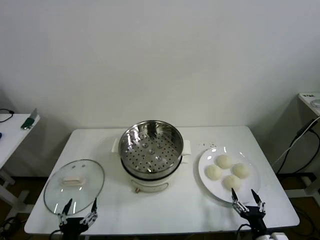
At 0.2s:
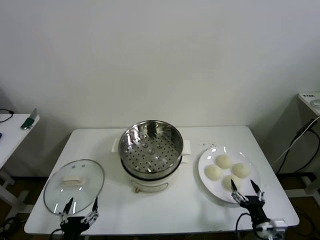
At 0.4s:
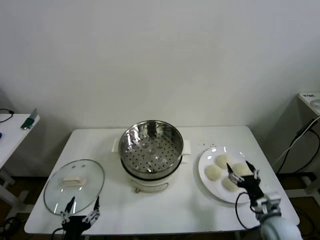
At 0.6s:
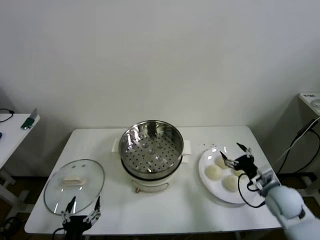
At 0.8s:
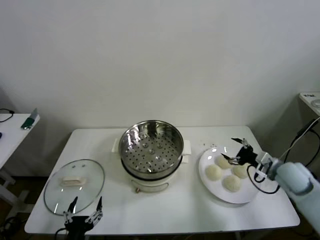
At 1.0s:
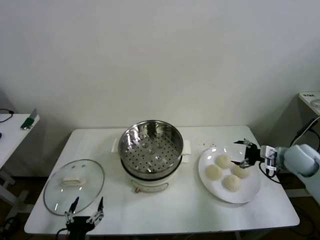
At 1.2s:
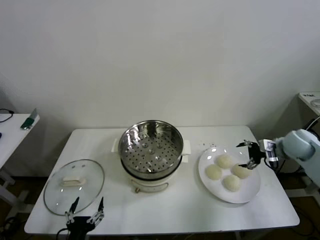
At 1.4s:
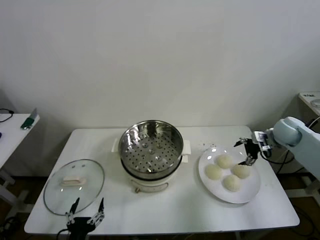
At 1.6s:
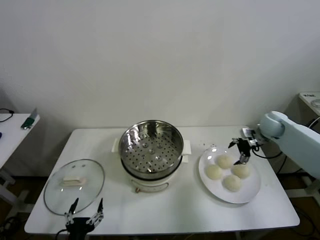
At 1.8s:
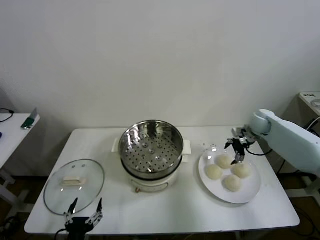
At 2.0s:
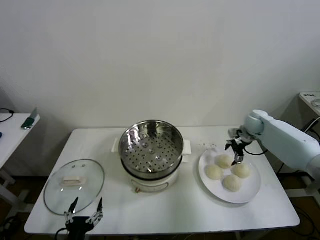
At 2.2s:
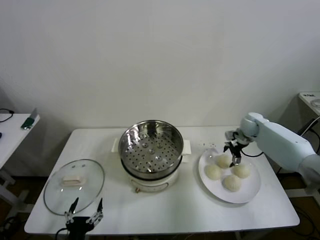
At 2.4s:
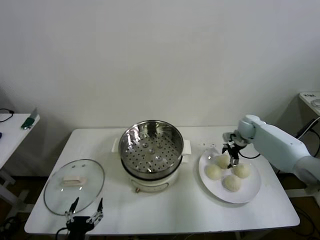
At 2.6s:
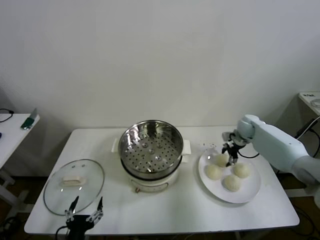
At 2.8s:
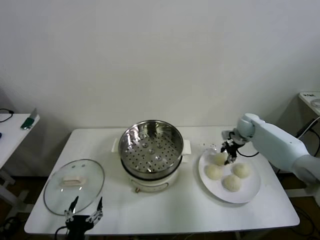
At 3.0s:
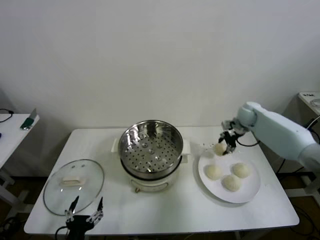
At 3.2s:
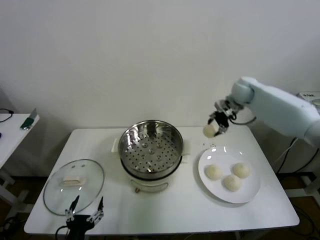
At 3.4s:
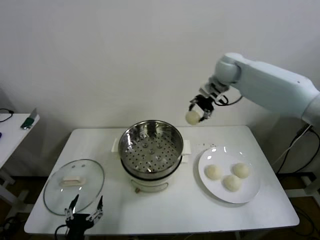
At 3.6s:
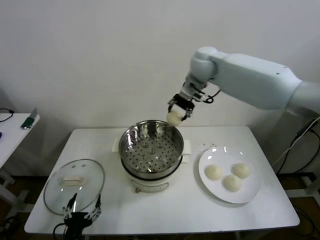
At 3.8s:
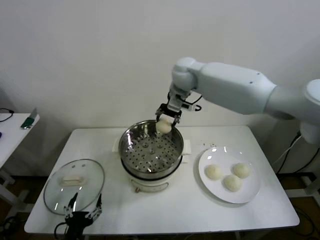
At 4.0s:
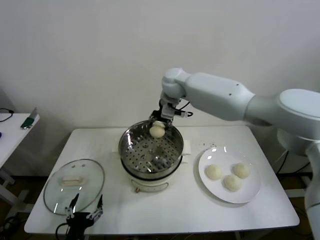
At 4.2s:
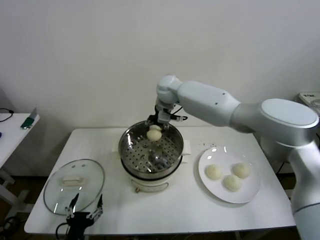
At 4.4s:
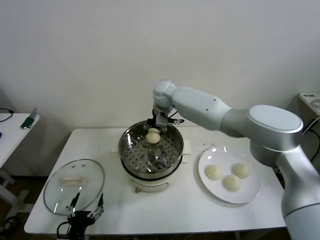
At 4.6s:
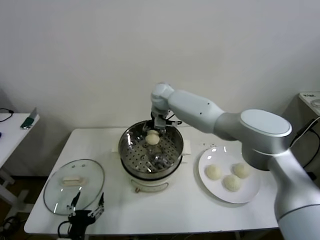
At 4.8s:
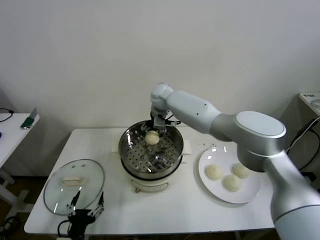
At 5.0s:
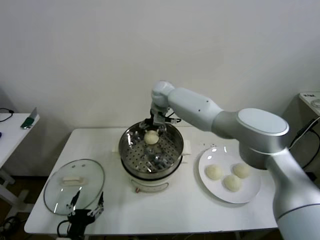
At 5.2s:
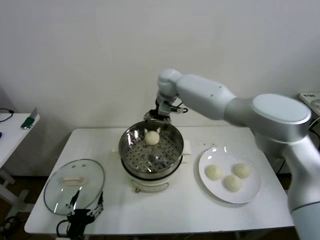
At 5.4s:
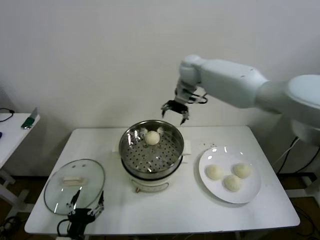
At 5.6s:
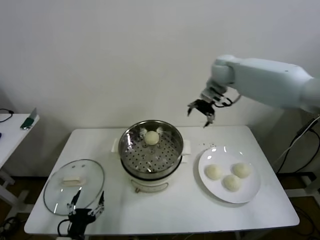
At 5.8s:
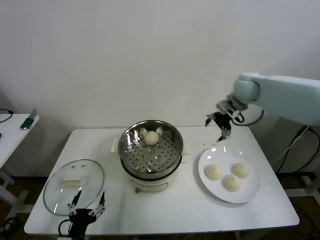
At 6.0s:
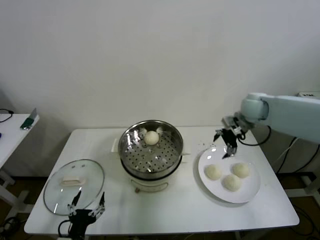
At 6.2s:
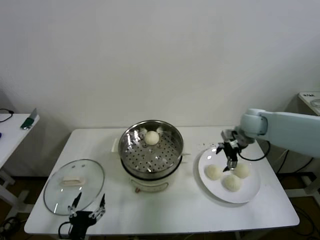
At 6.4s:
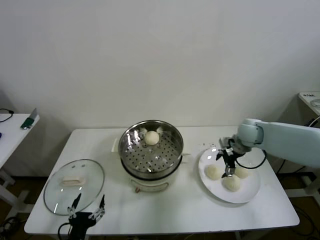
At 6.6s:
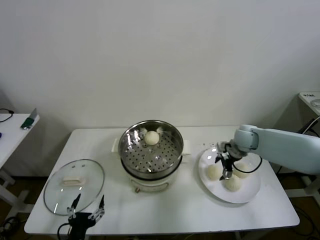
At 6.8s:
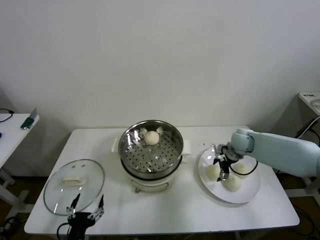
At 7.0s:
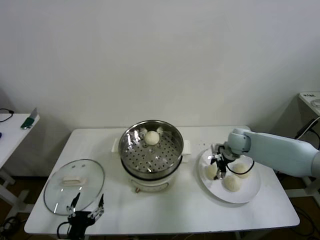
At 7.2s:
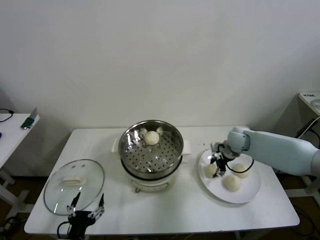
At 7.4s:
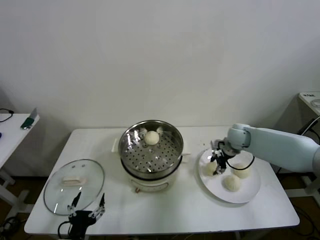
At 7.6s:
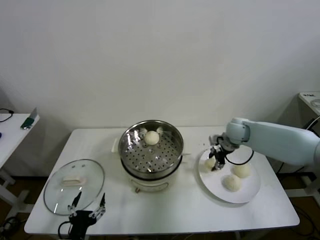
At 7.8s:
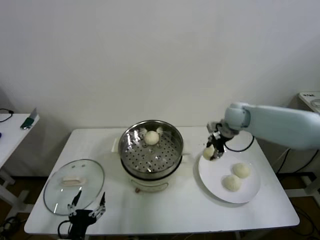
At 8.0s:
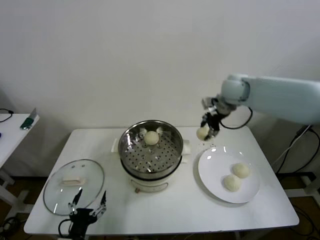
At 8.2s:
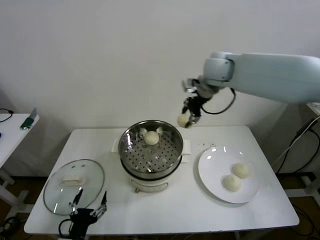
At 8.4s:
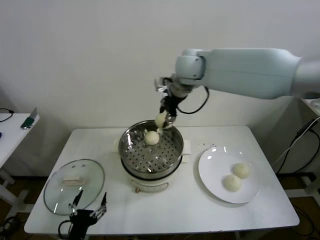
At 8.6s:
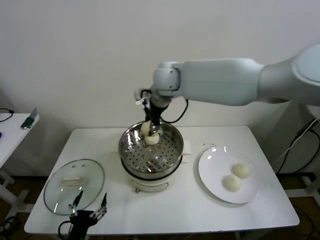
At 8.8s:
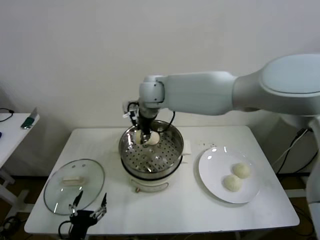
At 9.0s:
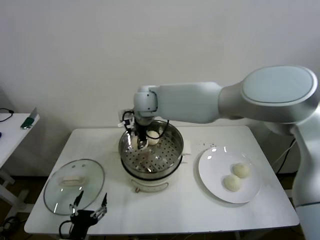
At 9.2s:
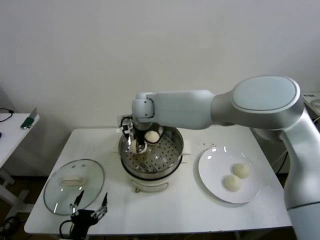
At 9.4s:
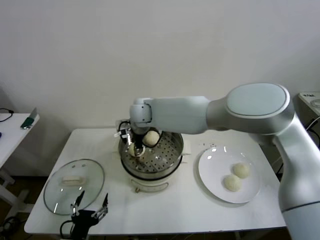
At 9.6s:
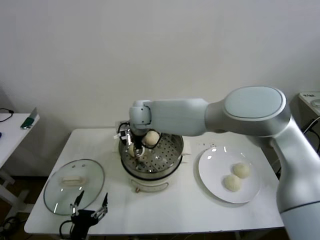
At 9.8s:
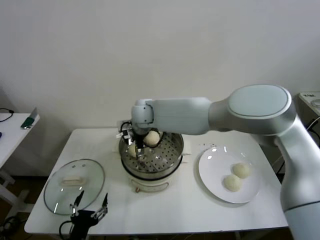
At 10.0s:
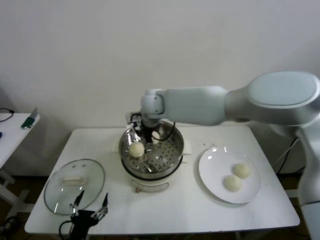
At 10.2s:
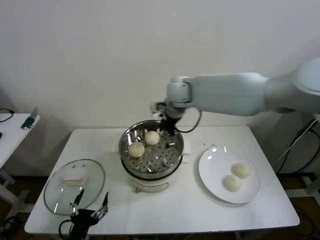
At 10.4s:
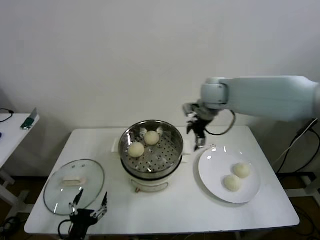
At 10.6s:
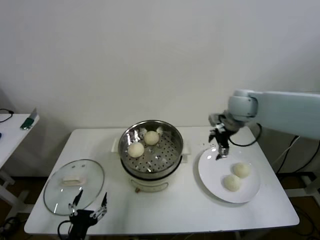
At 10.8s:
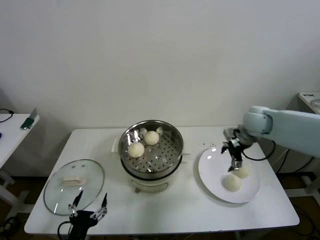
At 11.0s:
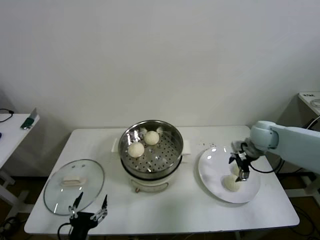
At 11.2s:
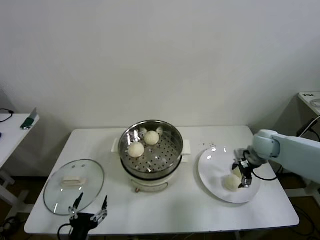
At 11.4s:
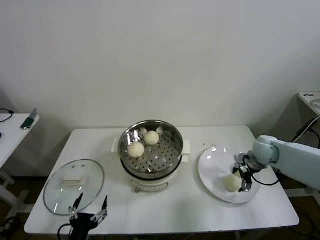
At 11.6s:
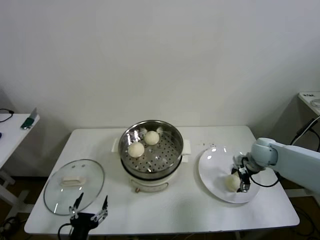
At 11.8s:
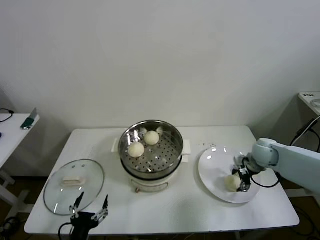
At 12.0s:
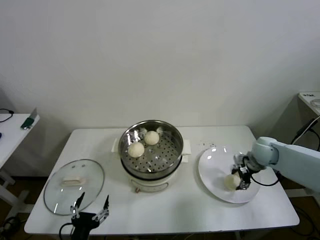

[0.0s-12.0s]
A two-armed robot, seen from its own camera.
Step, 0.0s to 2.6s: Grasp the baozi in the plate with right gripper.
Step, 2.8s to 4.8s: Place the baozi on the steamer with right gripper.
Step, 5.0s to 7.0s: Grasp the baozi in the plate with right gripper.
Step, 7.4s to 9.8s: Place the baozi on the steamer with right gripper.
Step, 10.0s to 11.8s: Grasp the baozi in the plate with right gripper.
1.6s to 3.0s: The right gripper shifts some 10 cm to the left, upward and forward, and closes its fingers.
3.0s to 4.4s: The right gripper moves to the left, some 30 cm.
4.4s to 6.0s: The right gripper travels to the right by some 30 cm, and opens its fingers.
6.0s to 7.6s: The right gripper moves downward, some 5 cm, and closes its fingers.
7.6s to 9.0s: The right gripper heads to the left, covering approximately 35 cm.
9.0s to 10.4s: The right gripper heads to the right, covering about 25 cm, and opens up.
10.4s to 12.0s: The right gripper travels downward and to the right by about 25 cm, and closes.

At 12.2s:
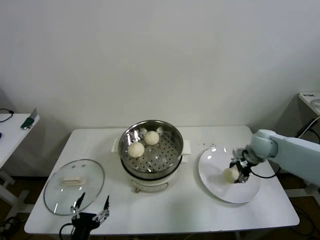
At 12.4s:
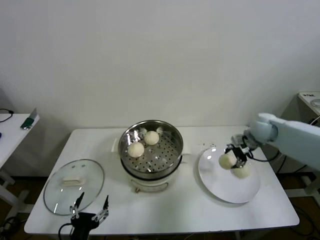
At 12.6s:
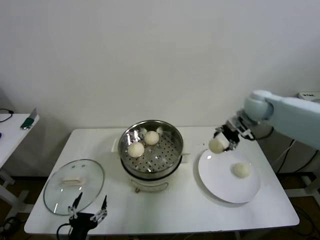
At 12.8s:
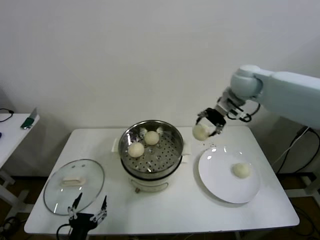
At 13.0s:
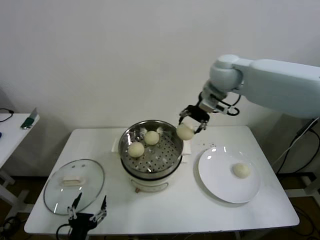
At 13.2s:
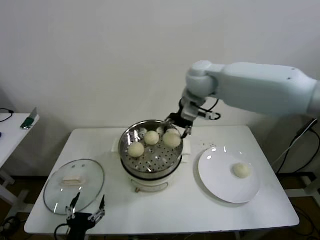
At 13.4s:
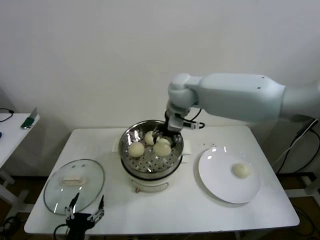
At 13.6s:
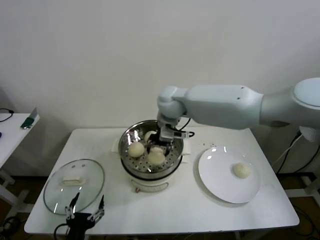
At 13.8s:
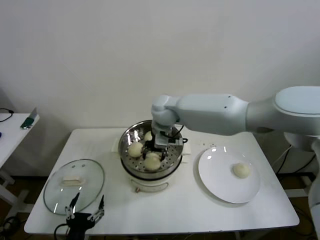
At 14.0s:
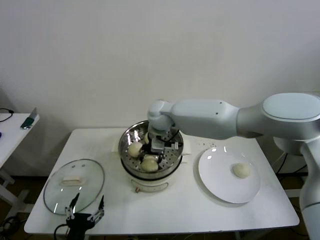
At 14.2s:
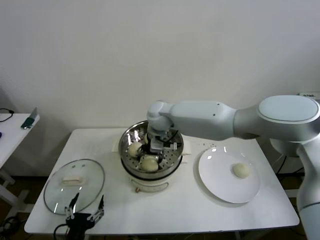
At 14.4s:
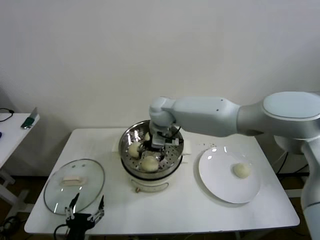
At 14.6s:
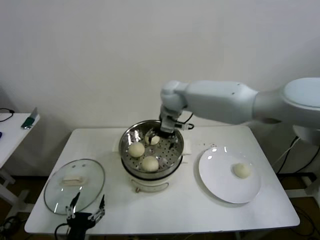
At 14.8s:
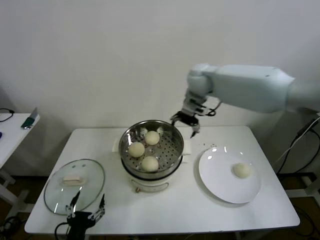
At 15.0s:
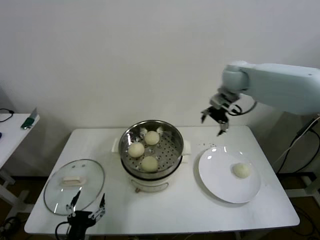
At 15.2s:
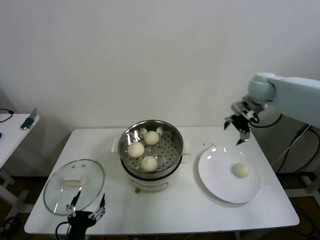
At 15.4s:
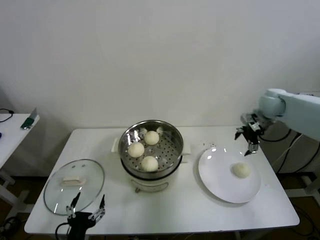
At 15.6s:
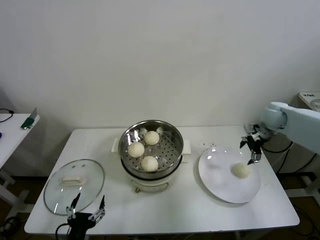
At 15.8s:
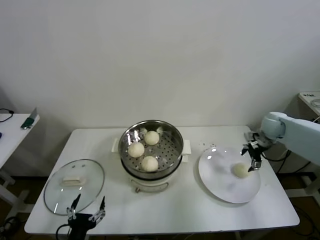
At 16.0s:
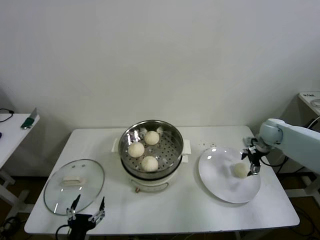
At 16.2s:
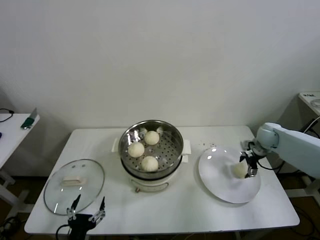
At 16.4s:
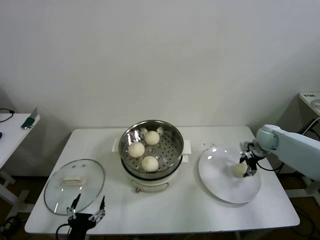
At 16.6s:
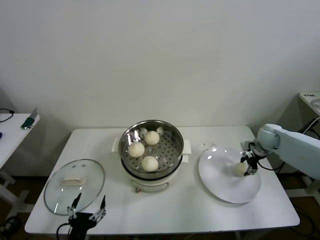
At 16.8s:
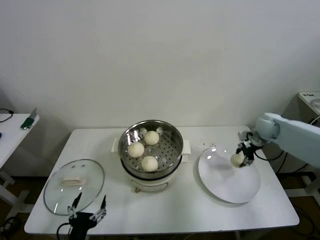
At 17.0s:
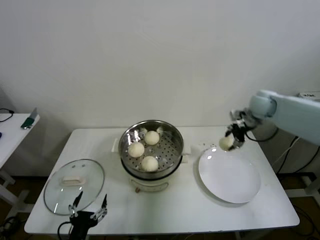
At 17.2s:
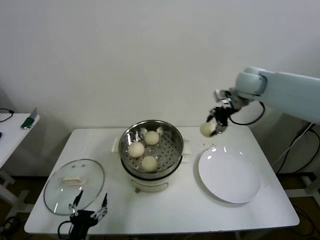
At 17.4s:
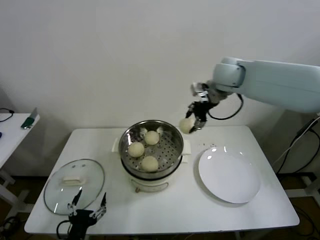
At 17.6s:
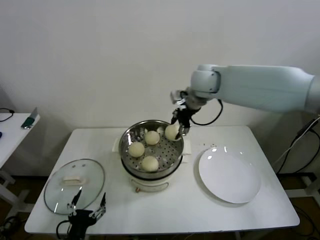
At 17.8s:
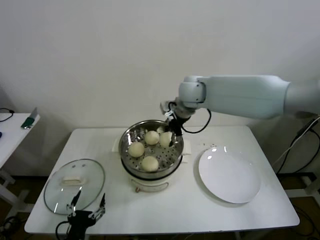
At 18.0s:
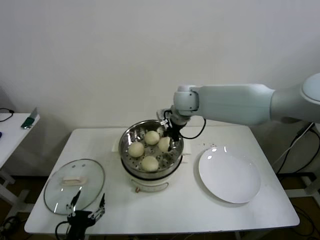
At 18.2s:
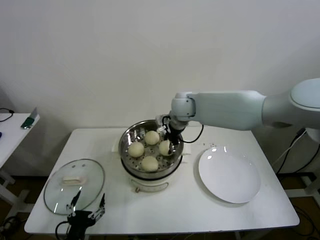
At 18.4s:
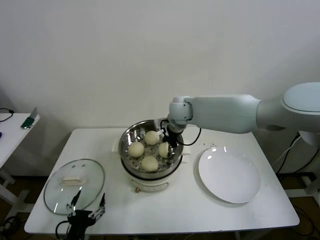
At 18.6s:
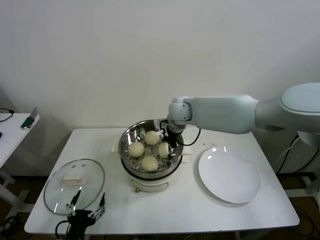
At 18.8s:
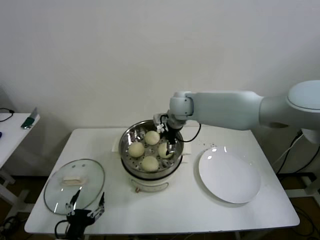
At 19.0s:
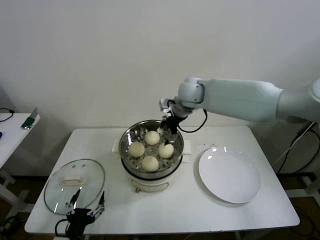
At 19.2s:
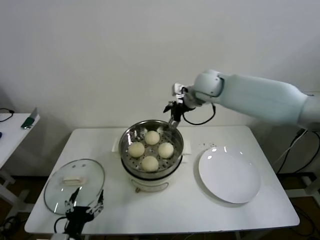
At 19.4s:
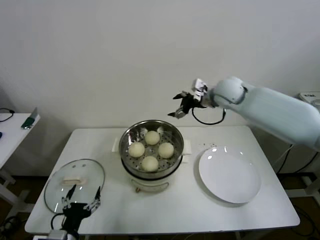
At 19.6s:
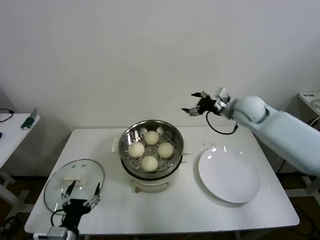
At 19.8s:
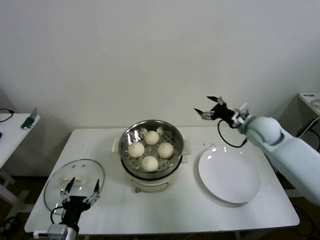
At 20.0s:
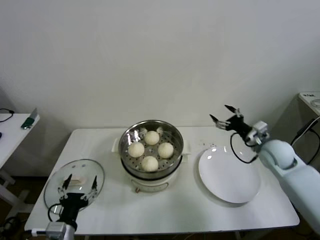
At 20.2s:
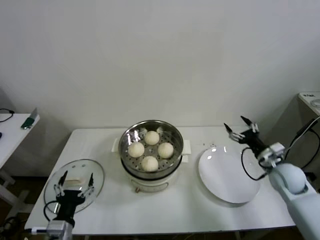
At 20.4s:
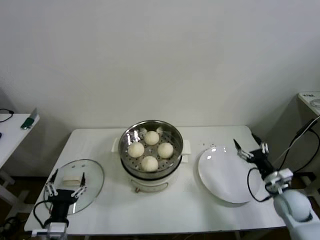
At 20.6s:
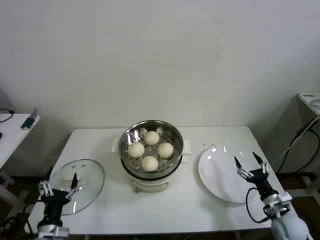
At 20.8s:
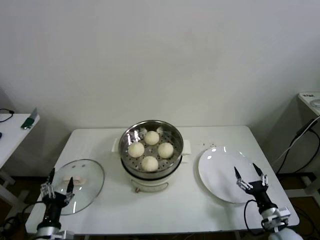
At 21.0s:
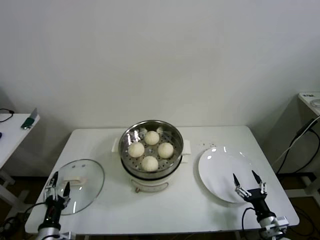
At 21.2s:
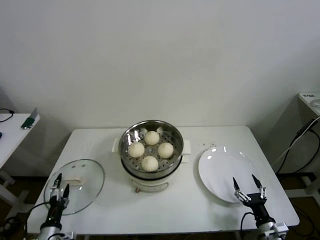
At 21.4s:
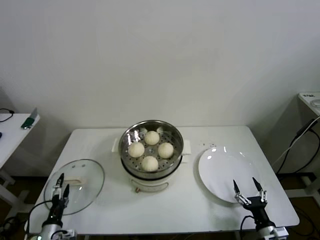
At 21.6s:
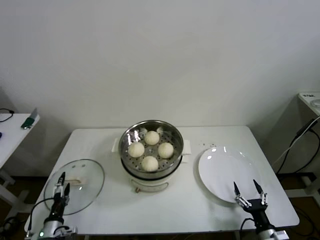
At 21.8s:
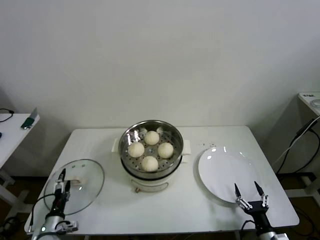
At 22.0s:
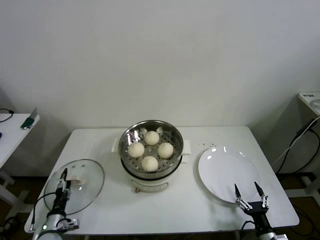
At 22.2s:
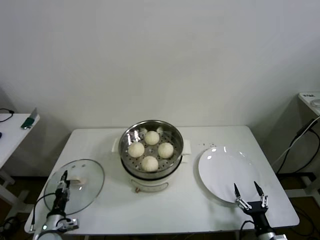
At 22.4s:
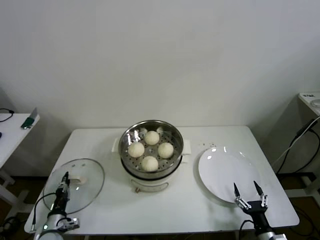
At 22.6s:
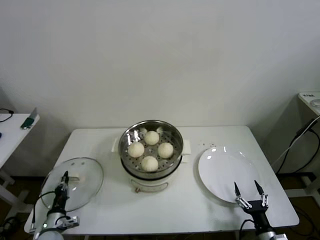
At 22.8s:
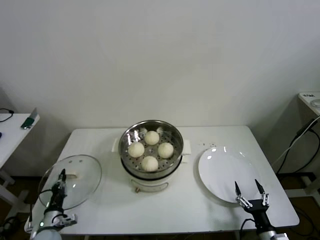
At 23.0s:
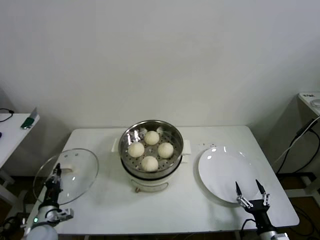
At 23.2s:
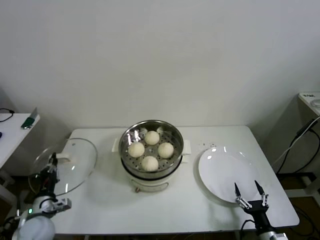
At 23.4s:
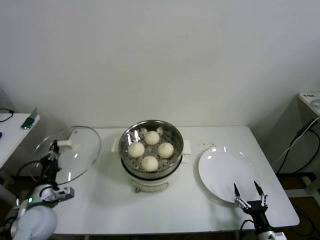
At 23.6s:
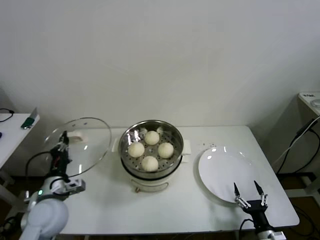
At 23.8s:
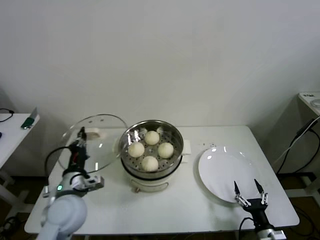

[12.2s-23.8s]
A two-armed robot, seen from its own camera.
Step, 12.2s to 14.2s: Place the baozi on the steamer with right gripper.
Step, 14.4s to 16.4s: Grasp the baozi in the plate with right gripper.
Step, 16.6s to 18.4s: Place the baozi on the steamer with right gripper.
Step, 18.8s to 22.4s: Grasp the pot lid with left gripper.
12.2s to 13.6s: The right gripper travels to the left and upward by roughly 35 cm.
13.6s to 15.0s: The right gripper moves to the right, roughly 20 cm, and opens its fingers.
15.0s to 16.6s: The right gripper moves downward and to the right, about 30 cm, and closes up.
16.6s to 18.0s: The right gripper moves to the left and upward, about 40 cm.
18.0s to 19.4s: The right gripper shifts some 15 cm to the right, and opens.
19.4s to 21.0s: The right gripper shifts approximately 50 cm downward, backward and to the right. The left gripper goes approximately 10 cm to the left and downward.
21.0s to 22.4s: The right gripper ends up about 5 cm from where it was; the left gripper goes approximately 10 cm downward and forward, and closes up.
22.4s to 23.8s: The left gripper shifts approximately 25 cm upward and to the right.
